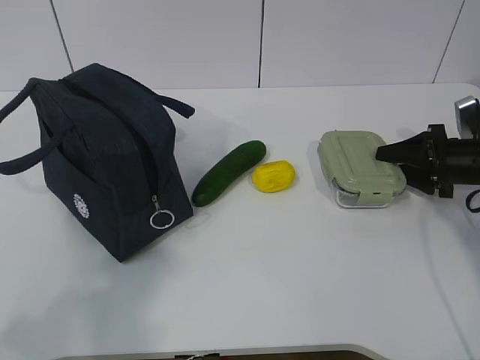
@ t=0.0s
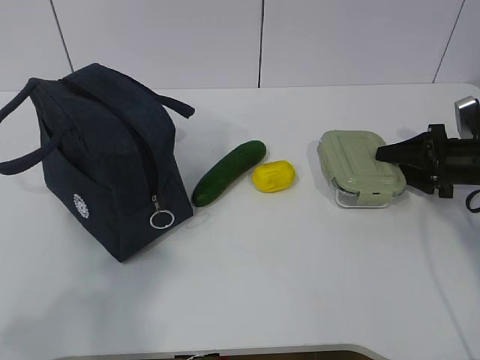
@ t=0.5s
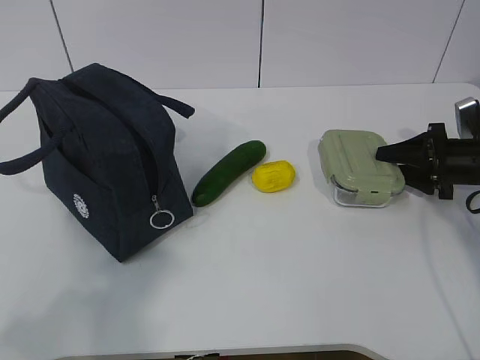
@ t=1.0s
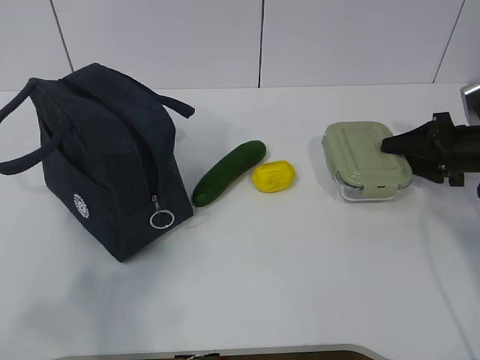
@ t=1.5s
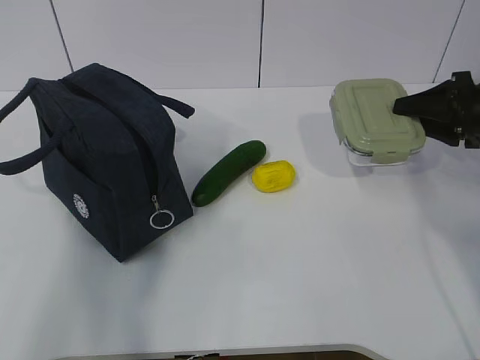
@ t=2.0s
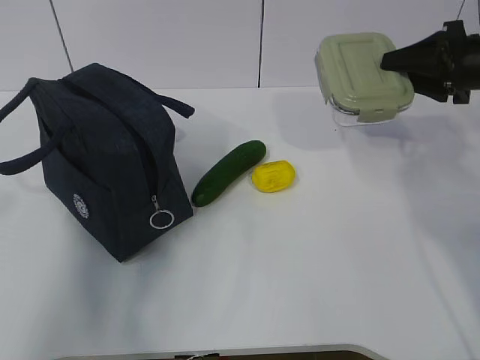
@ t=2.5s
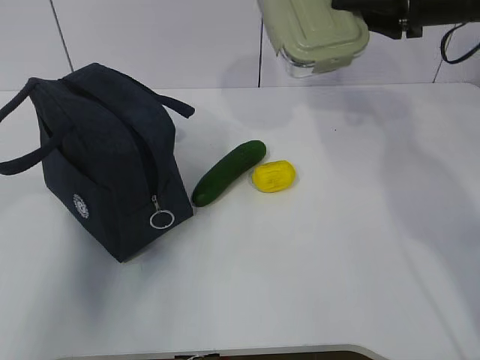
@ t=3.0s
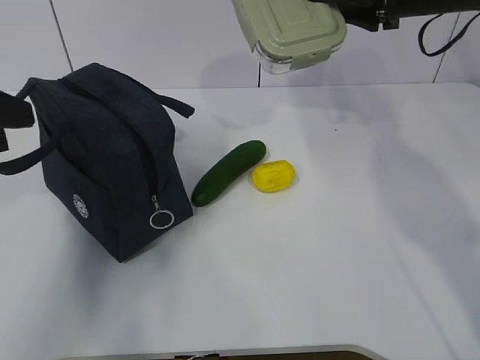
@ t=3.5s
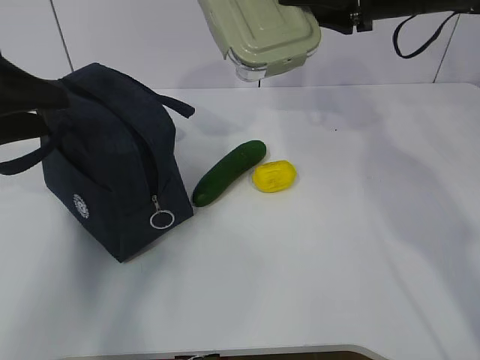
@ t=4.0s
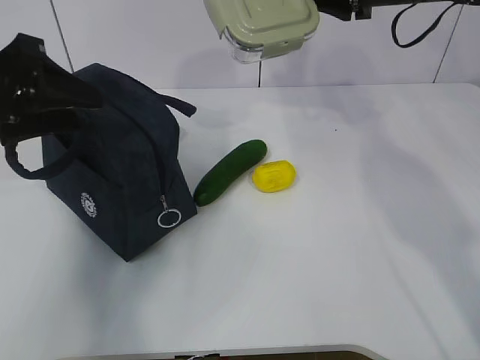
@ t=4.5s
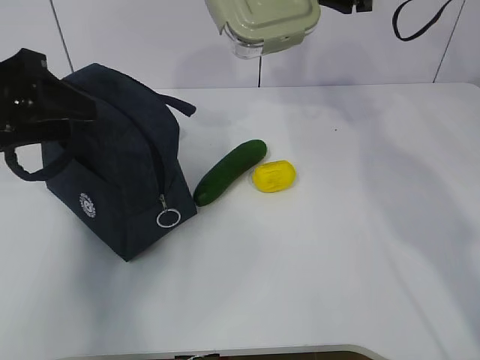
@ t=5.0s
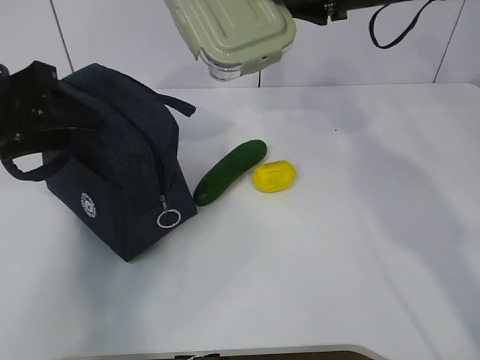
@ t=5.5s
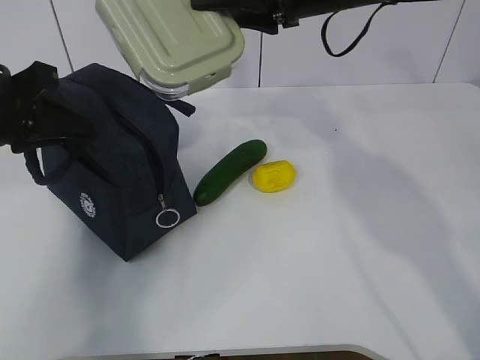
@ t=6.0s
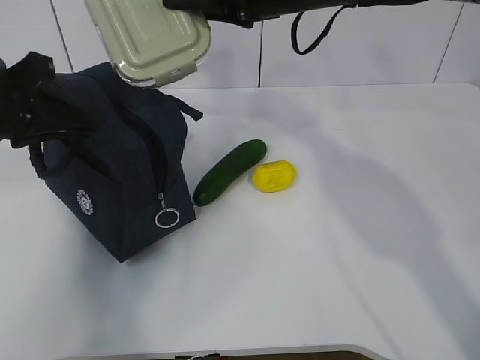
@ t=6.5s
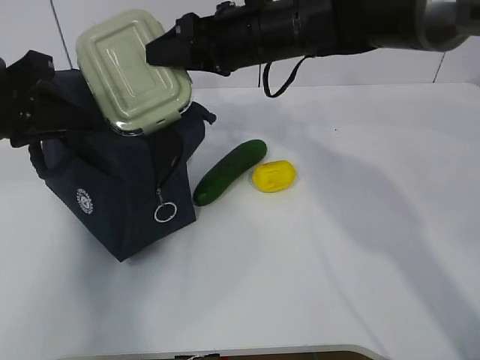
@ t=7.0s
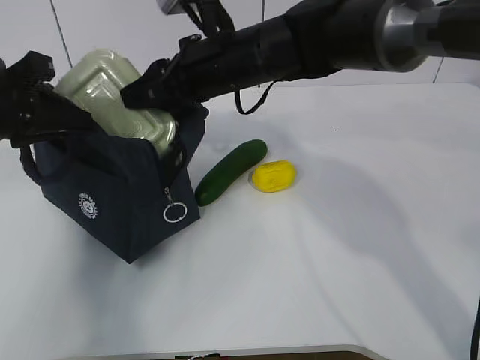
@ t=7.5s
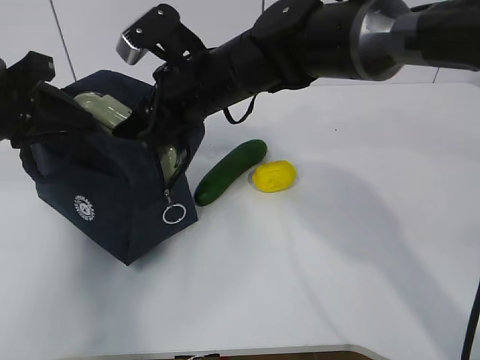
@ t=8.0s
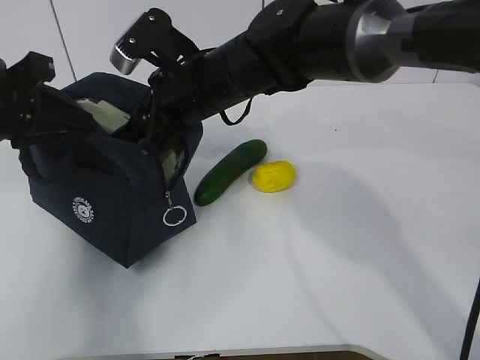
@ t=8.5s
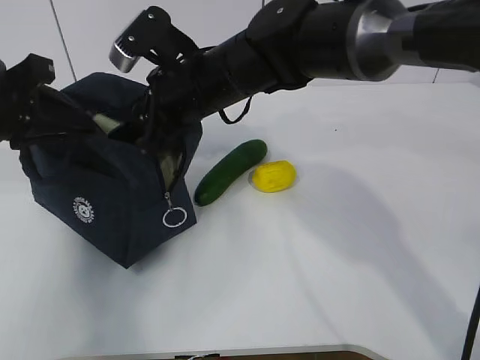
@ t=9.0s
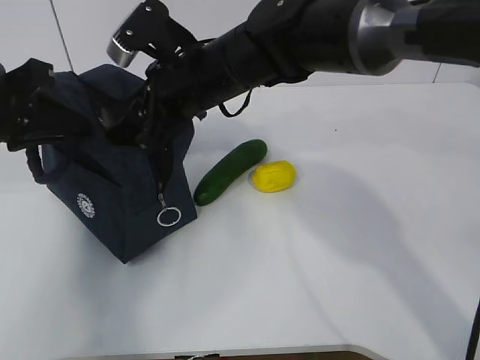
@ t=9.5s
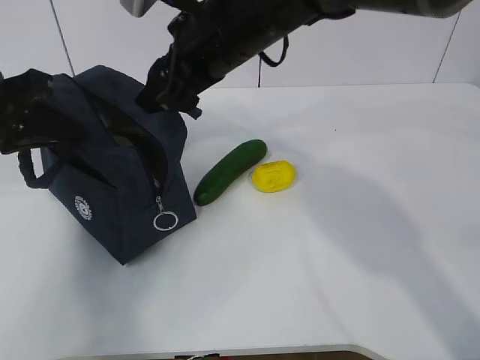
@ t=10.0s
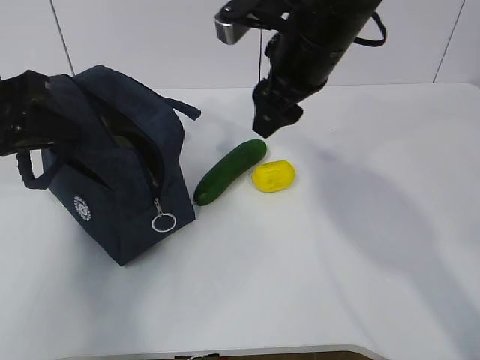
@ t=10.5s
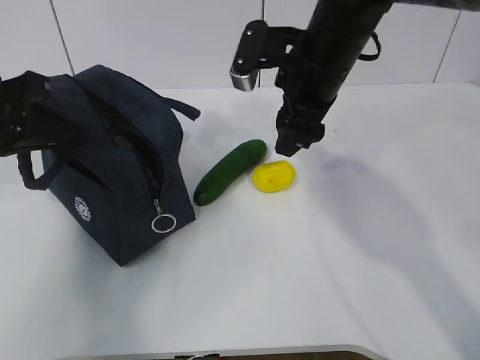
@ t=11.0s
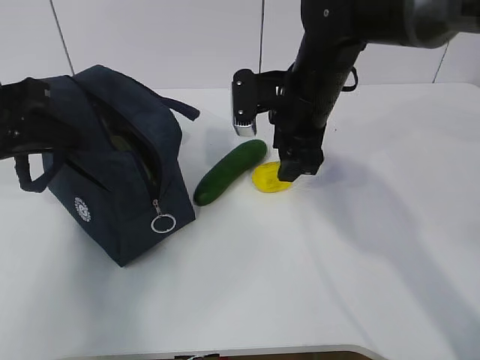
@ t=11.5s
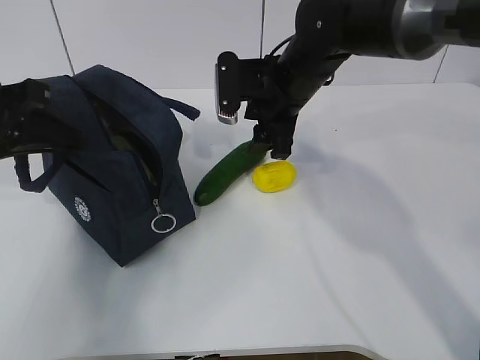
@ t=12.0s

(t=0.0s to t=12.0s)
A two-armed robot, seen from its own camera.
Step, t=0.0s - t=4.0s: Grab the lunch bag with your left hand.
Step, t=4.5s - t=6.0s: Place it into the bag with your right hand.
t=0.0s - t=2.0s: The right gripper shifts approximately 10 cm upward.
t=2.0s - t=4.0s: The left gripper travels forward by some 20 cm, and opens up. Meanwhile the right gripper shifts some 20 cm to the left and upward.
t=4.0s - t=6.0s: The right gripper heads to the left, covering approximately 10 cm; the left gripper closes up.
t=6.0s - t=8.0s: The right gripper shifts some 15 cm to the left and downward.
t=8.0s - t=10.0s: The right gripper moves upward, approximately 5 cm.
t=10.0s - t=12.0s: The right gripper goes some 10 cm downward, to the right and forward.

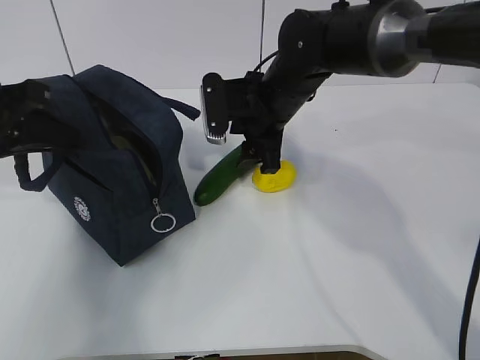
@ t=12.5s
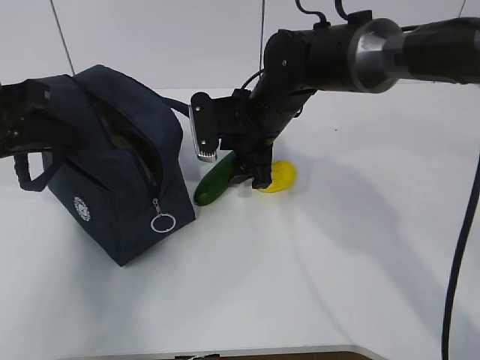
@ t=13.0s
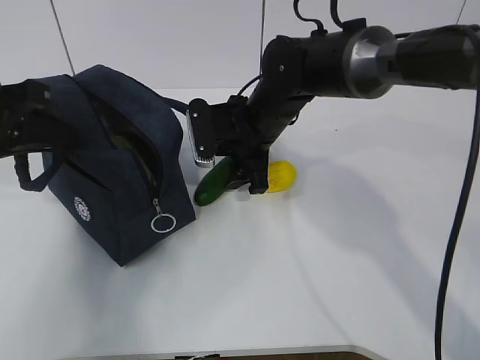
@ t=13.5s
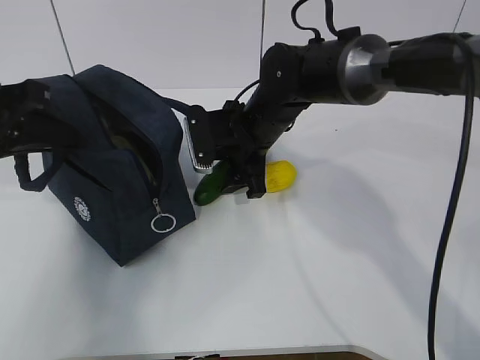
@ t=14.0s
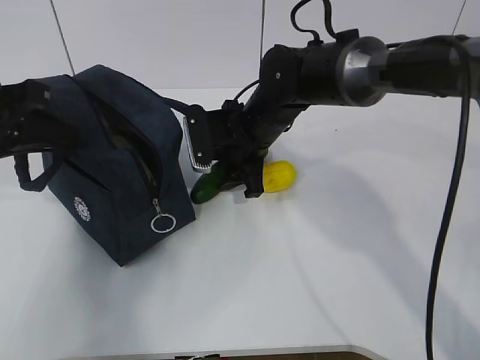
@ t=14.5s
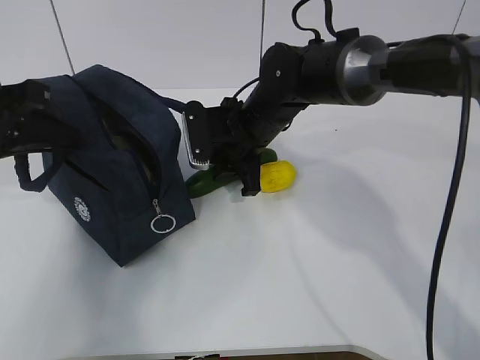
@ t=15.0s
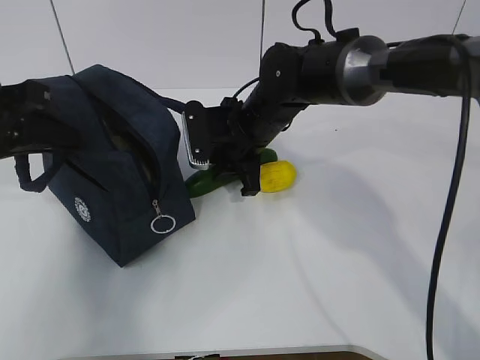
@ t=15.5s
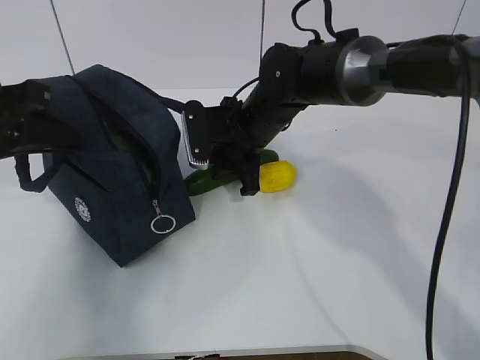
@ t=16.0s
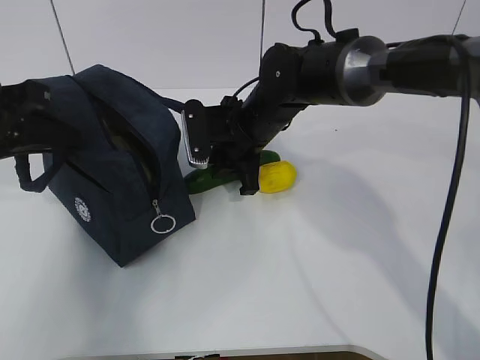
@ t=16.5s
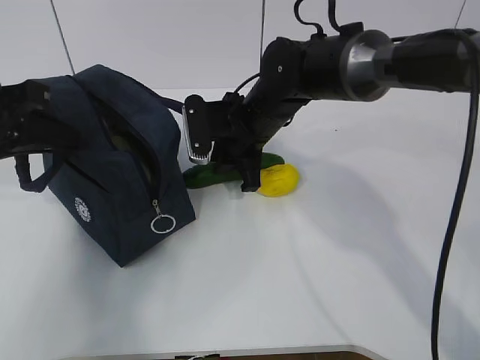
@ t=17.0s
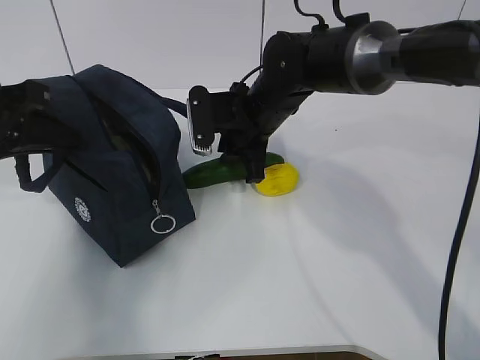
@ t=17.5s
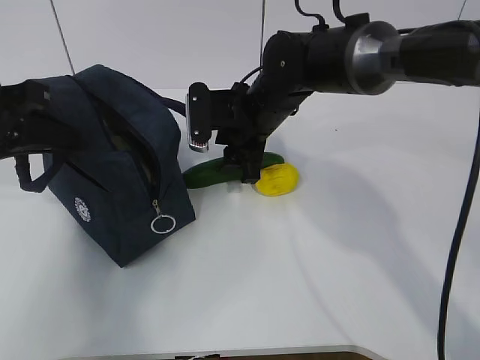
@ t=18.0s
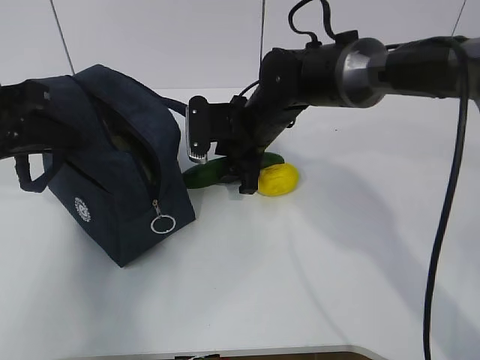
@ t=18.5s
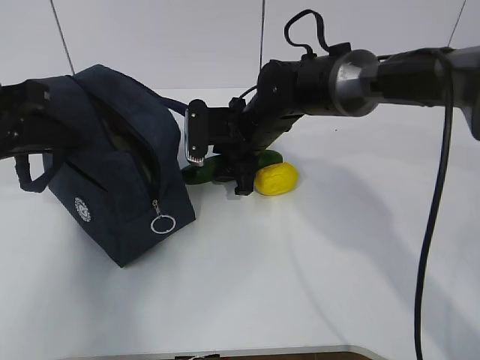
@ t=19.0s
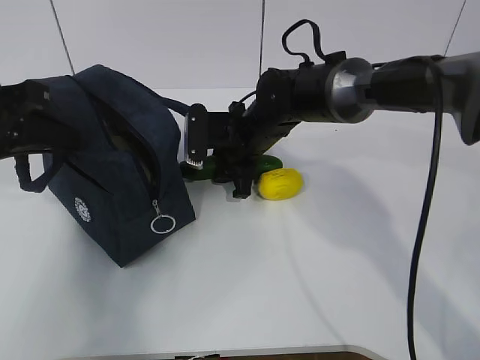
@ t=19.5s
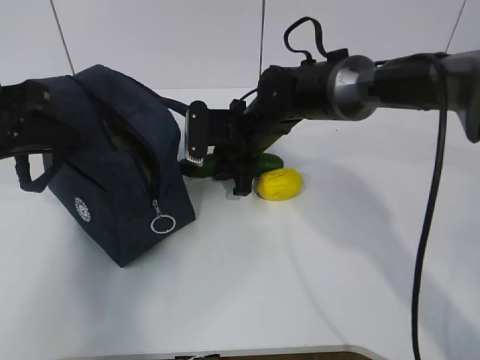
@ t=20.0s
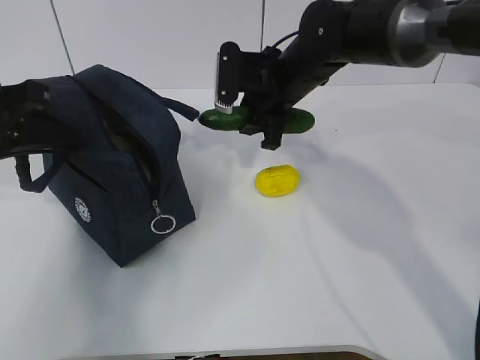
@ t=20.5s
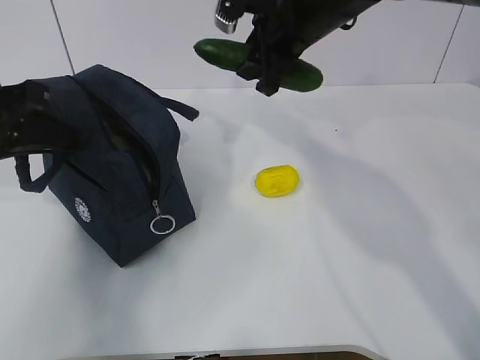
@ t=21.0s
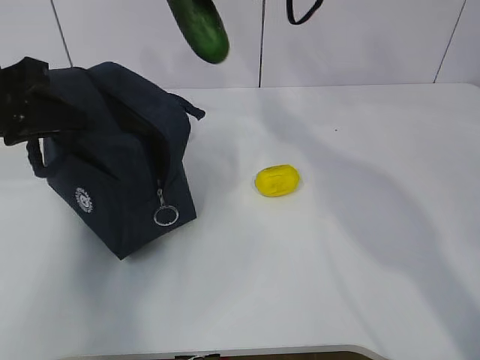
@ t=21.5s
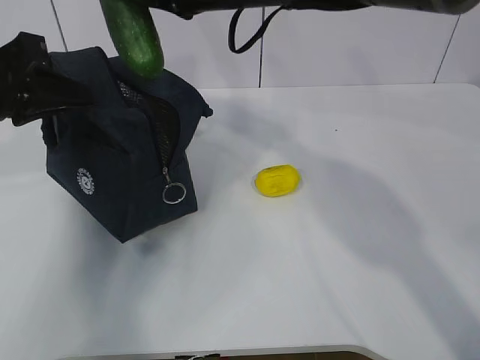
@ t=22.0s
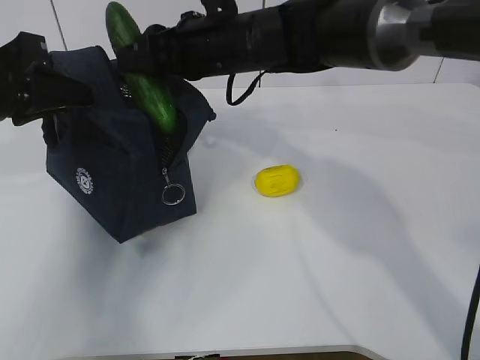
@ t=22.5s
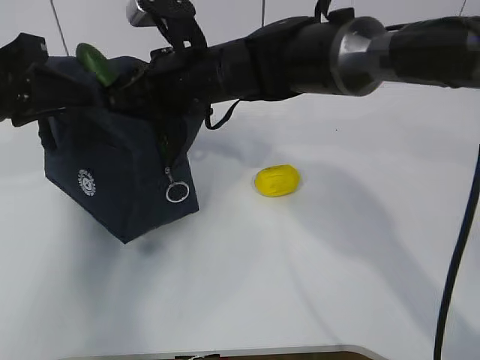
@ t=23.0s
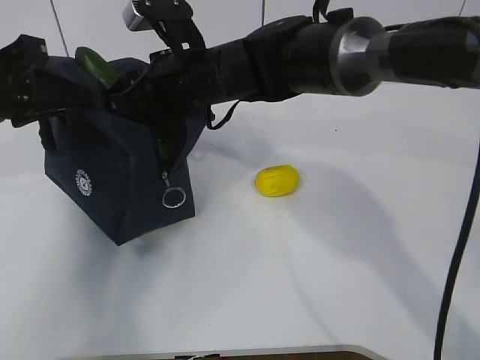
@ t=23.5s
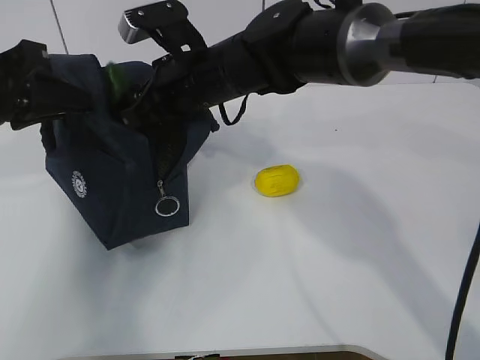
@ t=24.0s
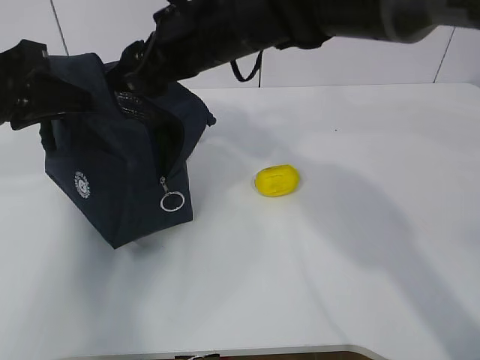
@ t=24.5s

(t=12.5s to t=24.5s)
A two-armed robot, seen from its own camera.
Step, t=12.5s - t=14.5s: Grab the cucumber with your right hand.
Step, t=15.5s - t=18.0s: Place it into the bag with your right hand.
Step, t=18.5s - t=22.5s: Grab the lemon with your right hand.
t=12.5s - t=14.5s: The grippers stay close to where they were, moving slightly.
t=14.5s - t=16.5s: The right gripper closes its fingers.
t=16.5s - t=18.5s: The right gripper opens.
t=18.5s - t=20.5s: The right gripper is displaced upward by some 5 cm.
t=20.5s - t=22.5s: The right gripper heads to the left and upward, covering some 10 cm.

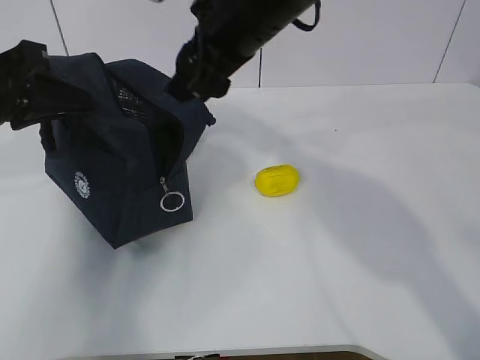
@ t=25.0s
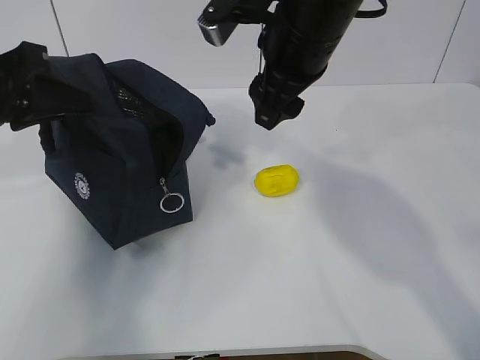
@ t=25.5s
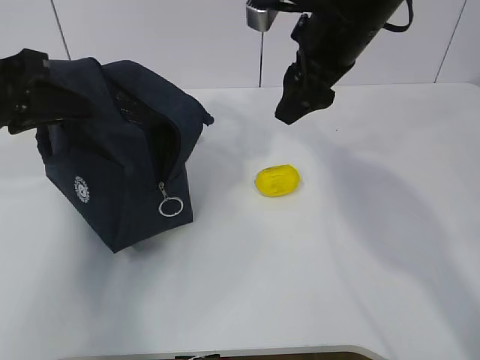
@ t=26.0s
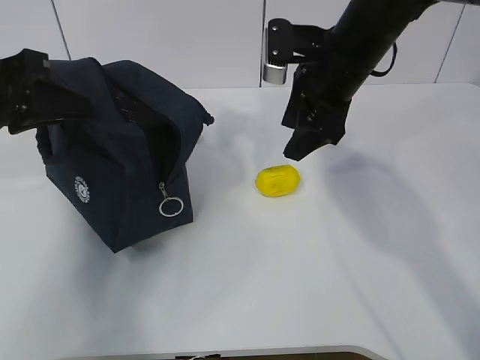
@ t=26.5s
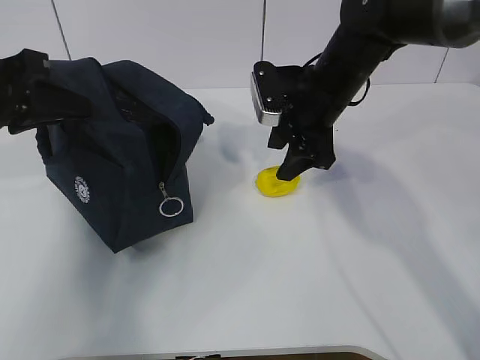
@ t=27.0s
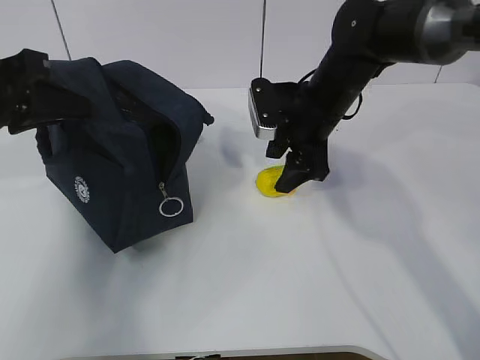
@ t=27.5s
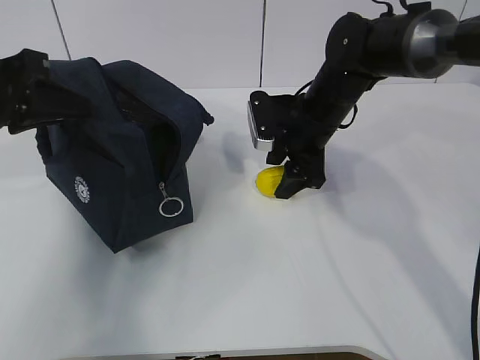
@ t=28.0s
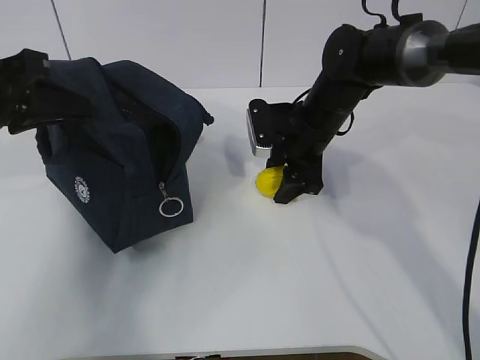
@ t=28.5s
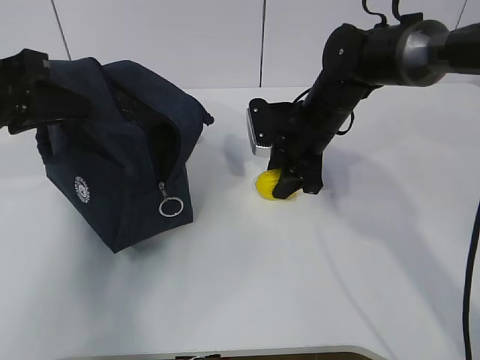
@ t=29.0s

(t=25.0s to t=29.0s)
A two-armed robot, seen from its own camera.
t=25.0s - t=27.0s: The right gripper shifts about 15 cm downward, to the right and forward.
t=27.0s - t=29.0s: The right gripper moves downward, roughly 5 cm.
